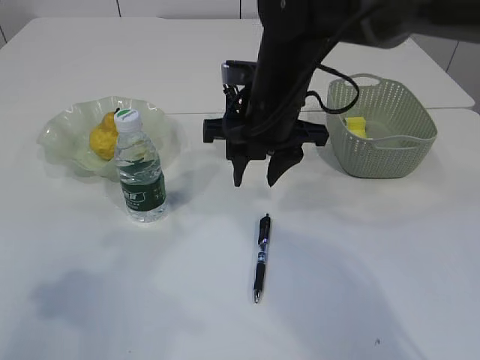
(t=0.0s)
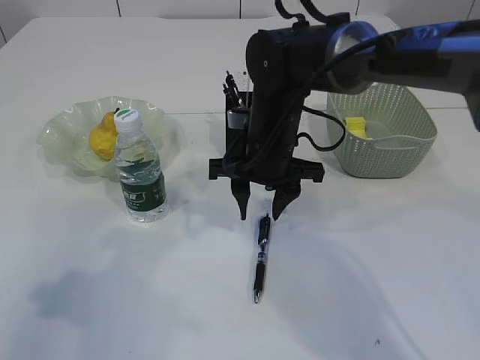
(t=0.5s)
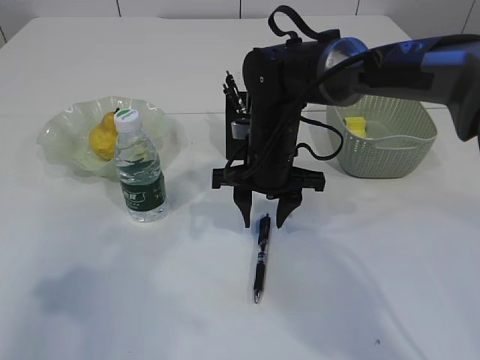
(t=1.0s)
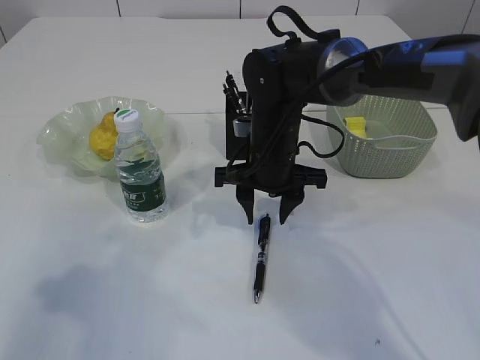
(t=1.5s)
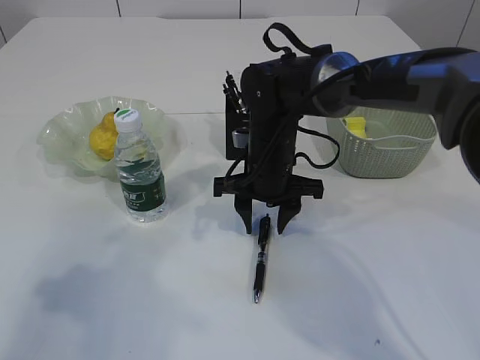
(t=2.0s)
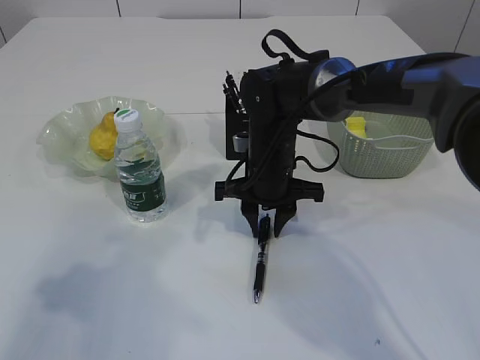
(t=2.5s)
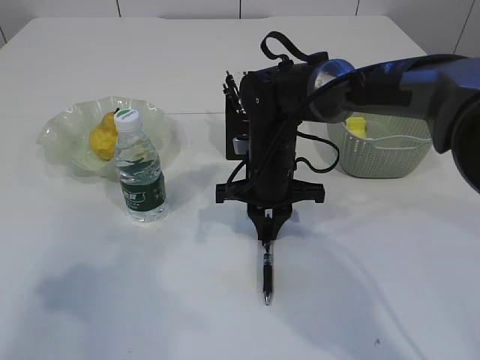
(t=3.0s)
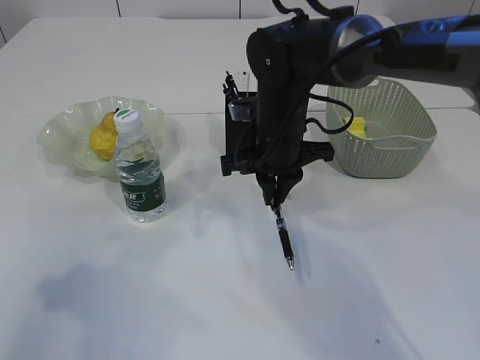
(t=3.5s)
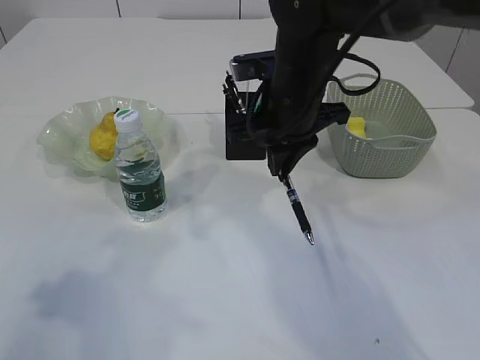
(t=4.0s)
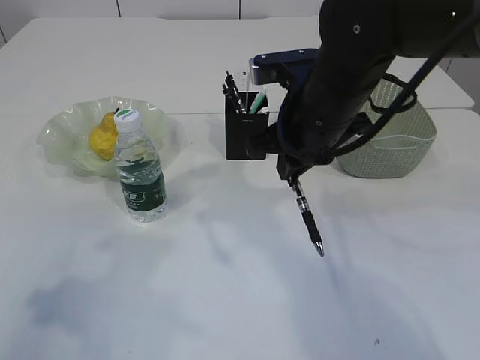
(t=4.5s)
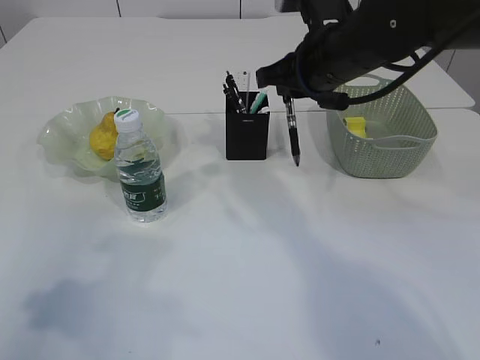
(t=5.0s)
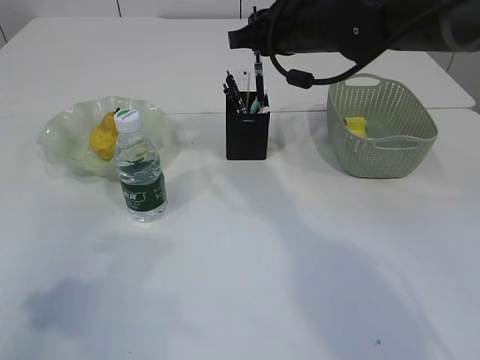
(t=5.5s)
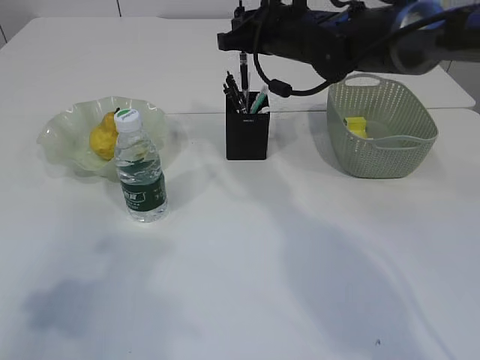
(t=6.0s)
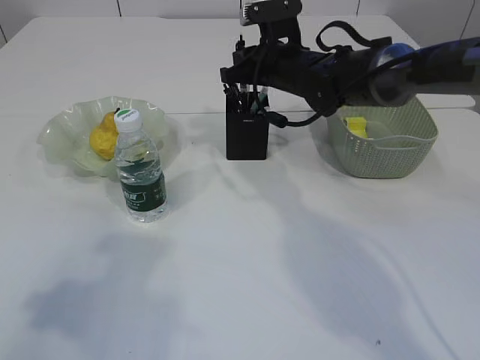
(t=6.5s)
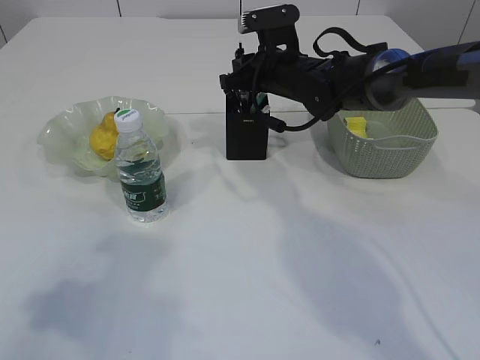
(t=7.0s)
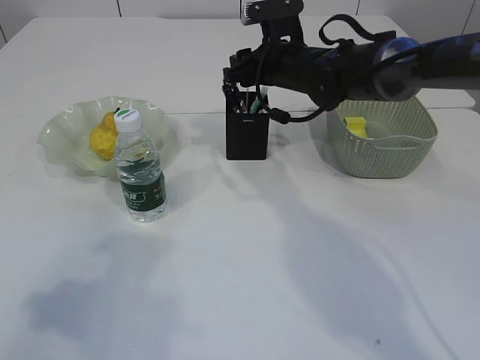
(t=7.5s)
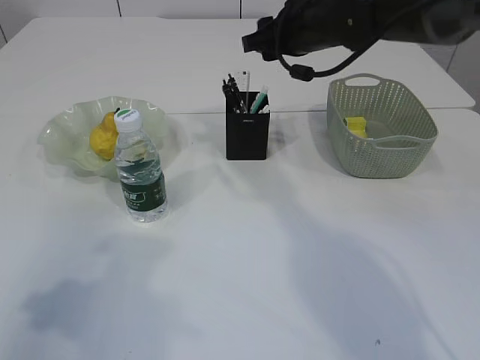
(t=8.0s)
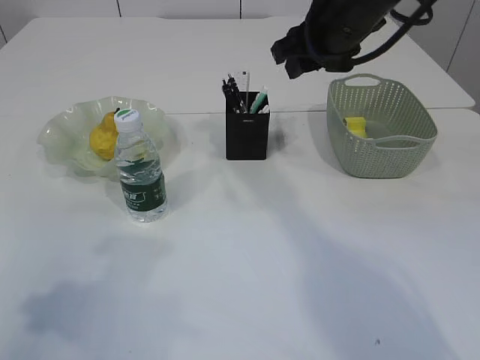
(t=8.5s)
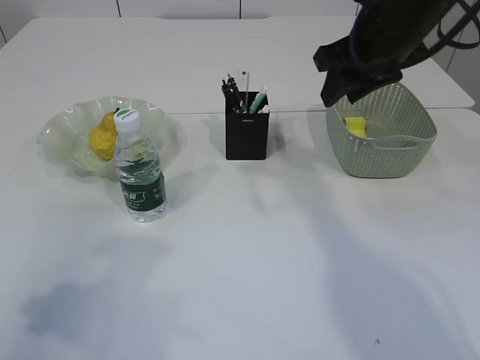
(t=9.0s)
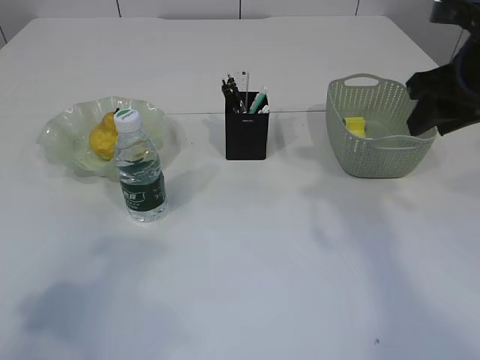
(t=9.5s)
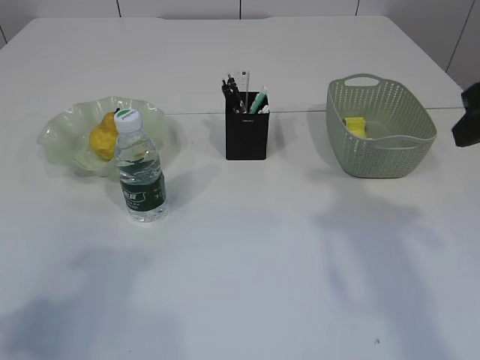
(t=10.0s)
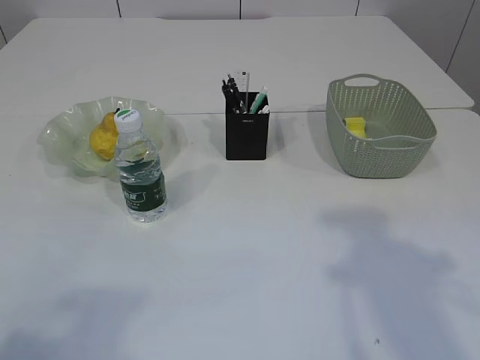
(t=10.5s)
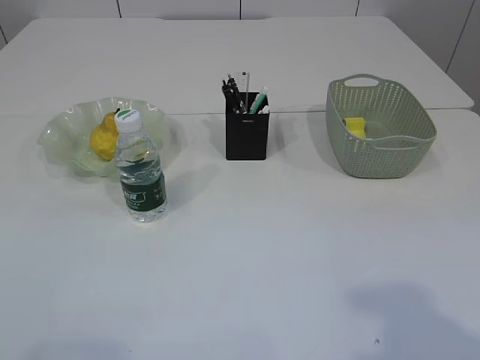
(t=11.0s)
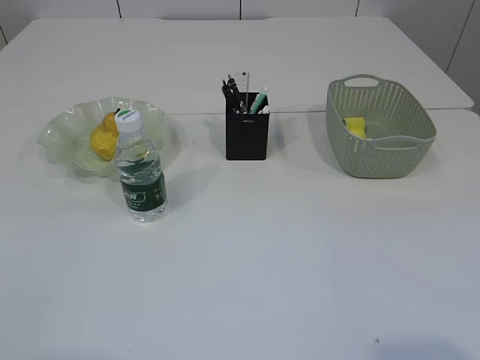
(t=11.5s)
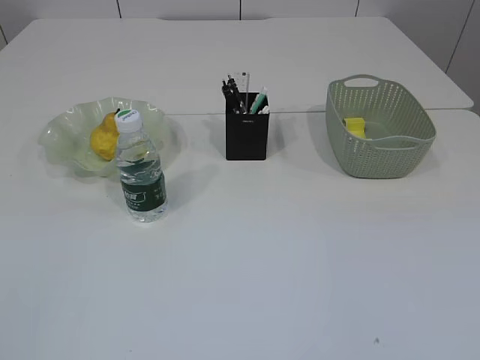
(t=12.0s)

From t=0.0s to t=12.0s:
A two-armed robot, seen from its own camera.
Step, from t=0.0s to t=4.0s: Pick up the pen with right arm.
Step, from t=4.5s to t=9.0s: Place the pen into the pen holder.
From t=0.0s to t=2.0s: The right gripper moves downward, roughly 10 cm.
From t=2.0s to t=4.0s: The right gripper goes about 10 cm upward, and closes.
From t=4.0s to t=6.0s: The right gripper heads forward, covering roughly 10 cm.
From t=6.0s to t=8.0s: The right gripper reaches approximately 5 cm downward, then returns, and opens up.
From t=8.0s to t=10.0s: The right gripper heads backward and to the right, covering some 25 cm.
From t=10.0s to t=12.0s: The left gripper travels backward by some 15 cm; the right gripper moves backward, approximately 30 cm.

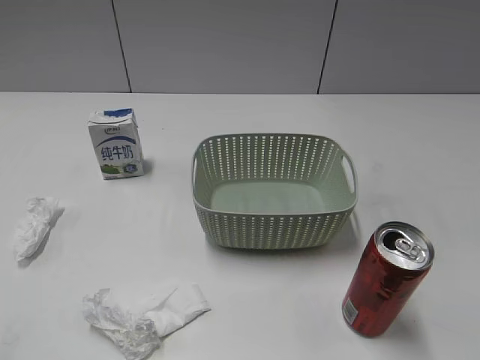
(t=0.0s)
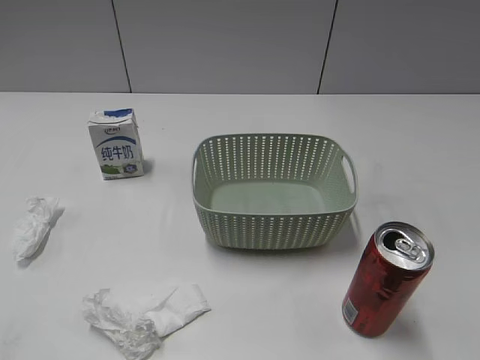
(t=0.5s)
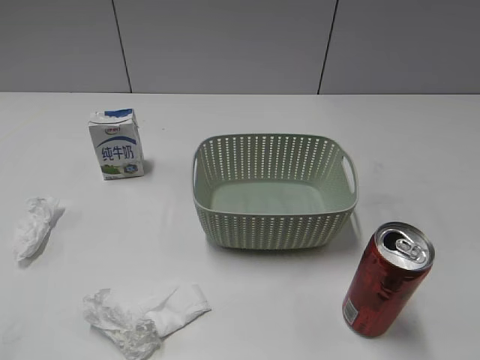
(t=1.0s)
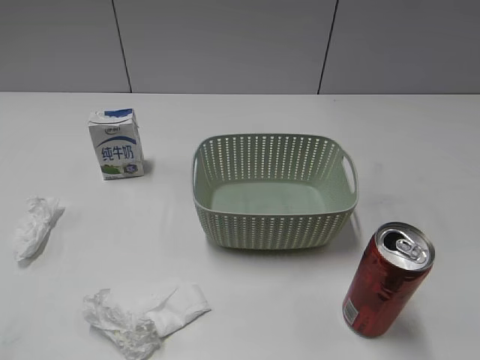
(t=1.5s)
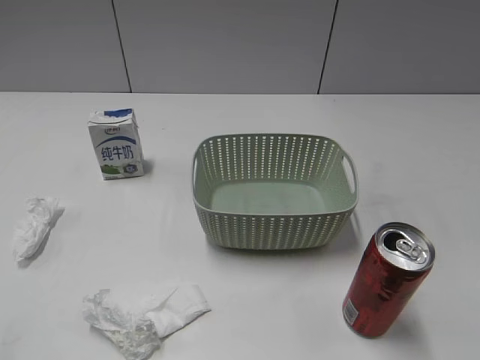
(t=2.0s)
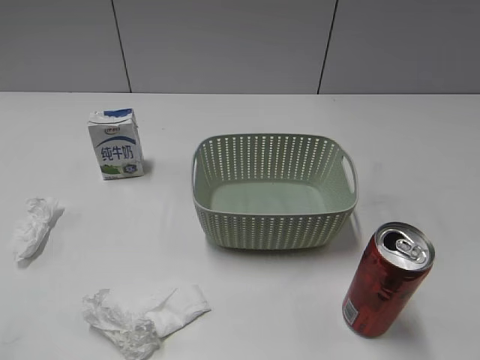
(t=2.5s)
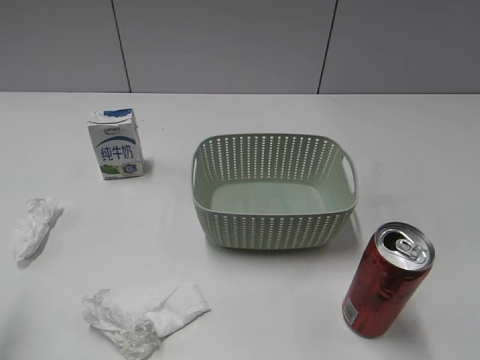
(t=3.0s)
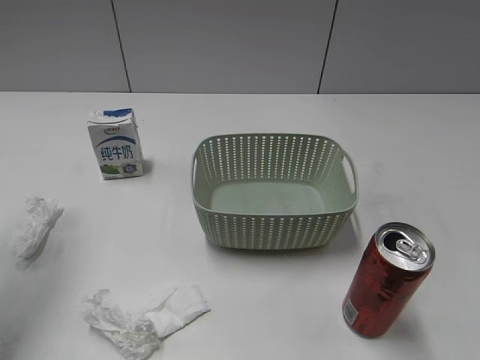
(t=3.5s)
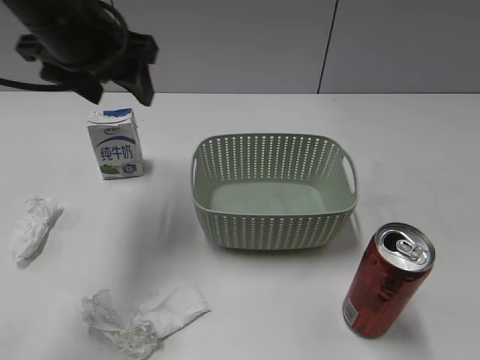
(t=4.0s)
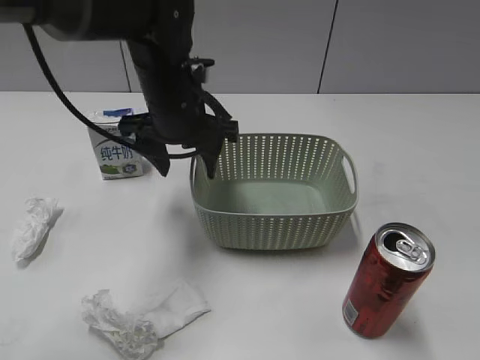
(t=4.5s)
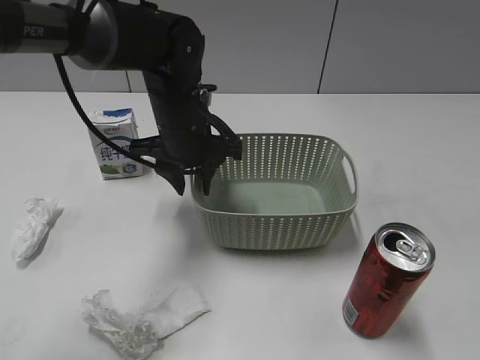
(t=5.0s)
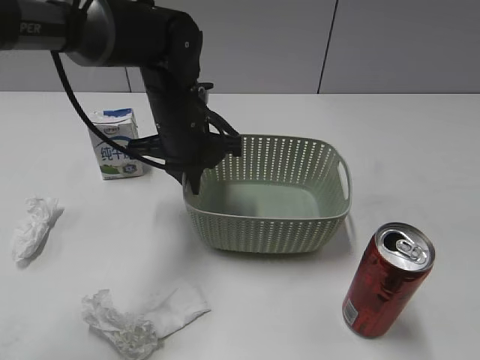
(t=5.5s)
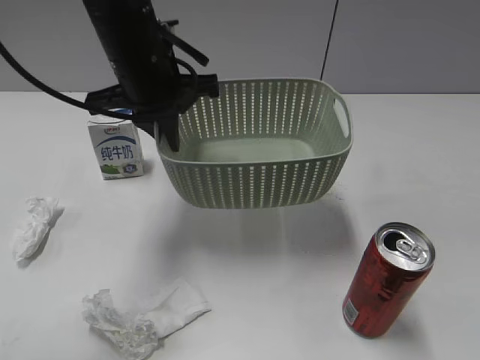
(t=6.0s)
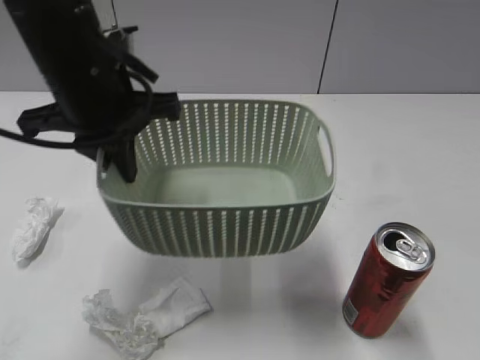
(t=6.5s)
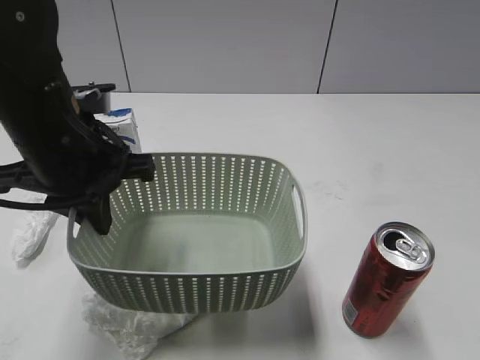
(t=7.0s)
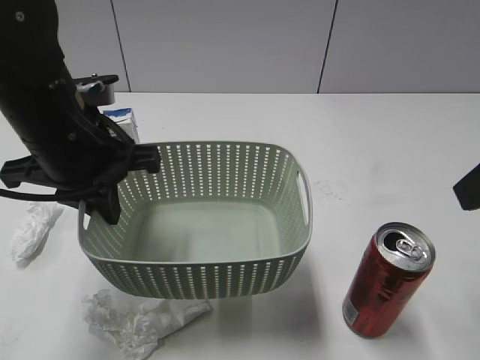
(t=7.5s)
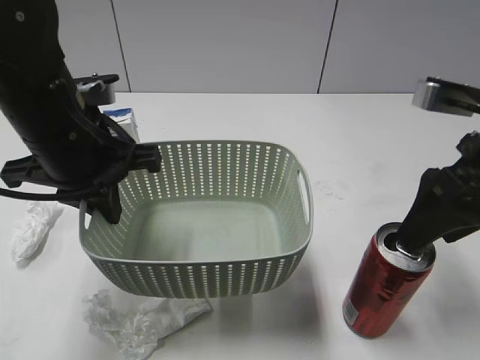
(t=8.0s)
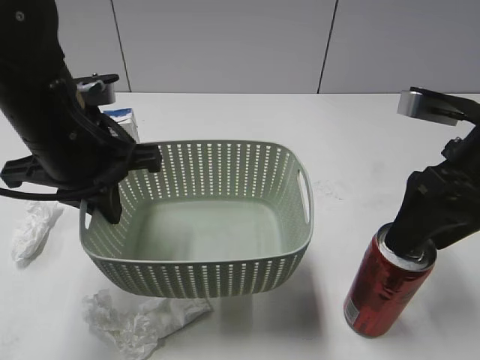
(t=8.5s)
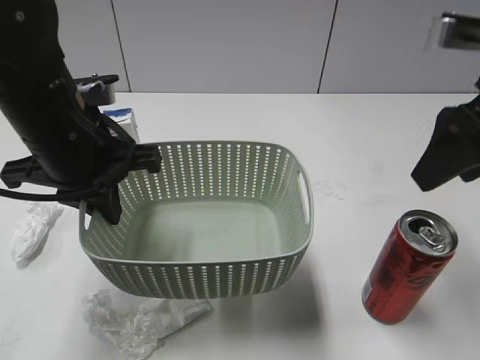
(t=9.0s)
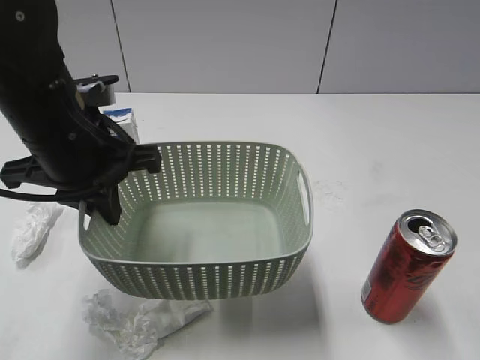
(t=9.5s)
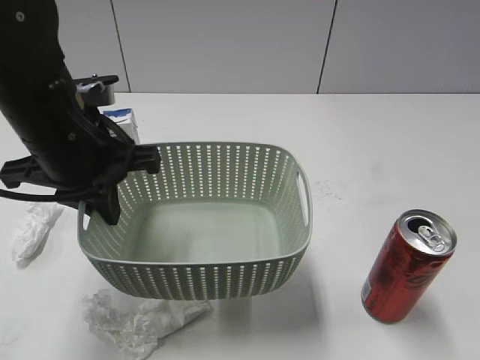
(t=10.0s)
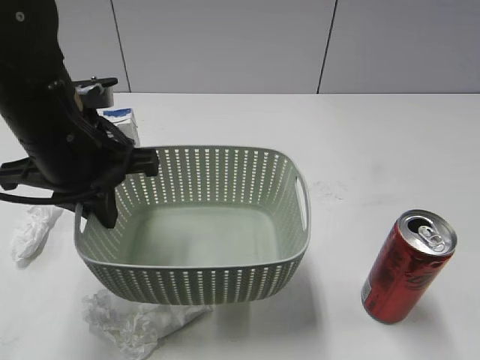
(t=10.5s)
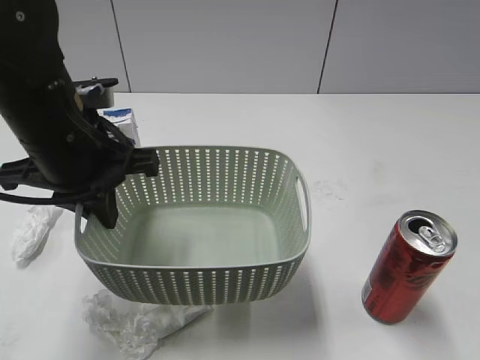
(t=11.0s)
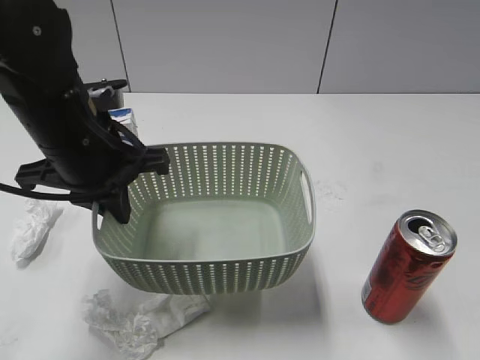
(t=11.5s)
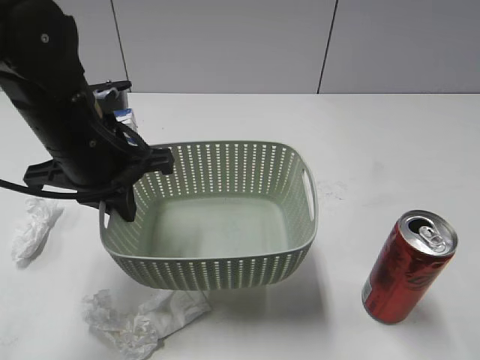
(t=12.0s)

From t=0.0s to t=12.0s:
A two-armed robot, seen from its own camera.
Step, from t=4.0s to t=5.0s: Grasp the basket with left gripper.
Step, from t=5.5s to t=7.0s: Lift the basket with left gripper.
From t=2.0s to t=4.0s: The left gripper shifts roughly 35 cm forward and to the right.
From t=4.0s to t=6.0s: The left gripper travels to the right and downward by approximately 10 cm, and closes.
From t=6.0s to t=8.0s: The left gripper is displaced backward and to the left by some 10 cm, while the right gripper heads forward, covering roughly 25 cm.
From t=8.0s to t=10.0s: The right gripper is displaced backward and upward by about 25 cm.
From t=10.0s to t=12.0s: The right gripper heads forward, covering some 10 cm, and opens up.

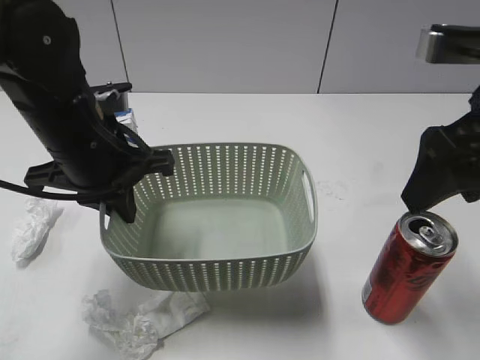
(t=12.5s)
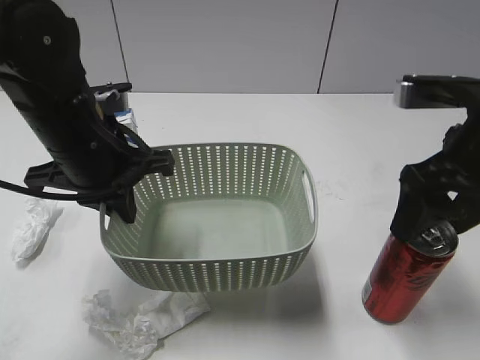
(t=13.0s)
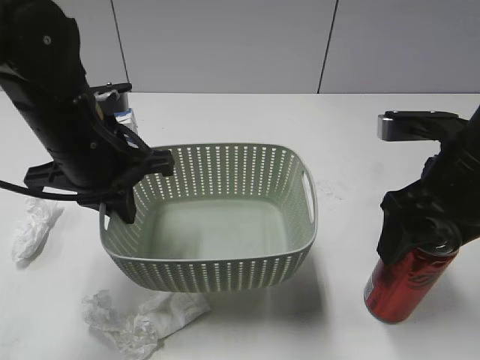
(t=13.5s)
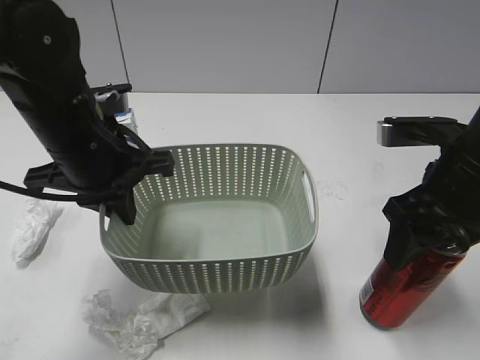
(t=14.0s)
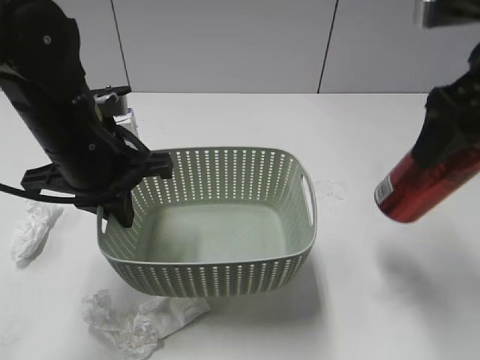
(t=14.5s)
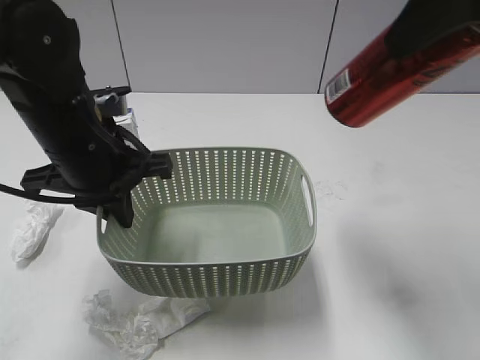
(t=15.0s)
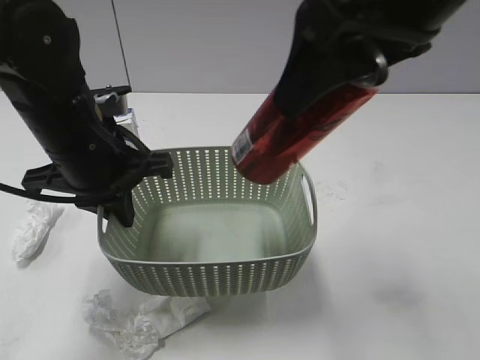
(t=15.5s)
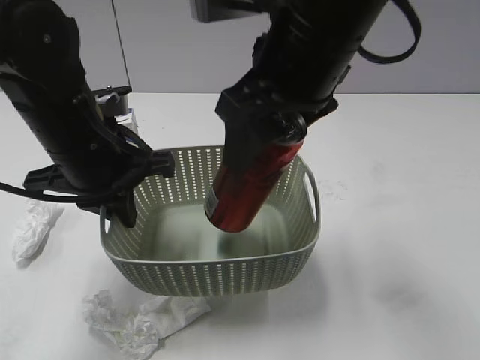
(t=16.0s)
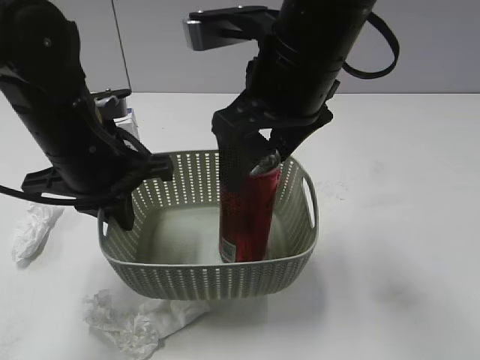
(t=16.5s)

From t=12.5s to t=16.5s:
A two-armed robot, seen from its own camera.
From t=12.5s to t=14.5s: The right gripper reaches some 10 cm downward, then returns, and closes up.
From t=14.5s to t=16.5s: The right gripper shifts some 15 cm to the left, and opens.
